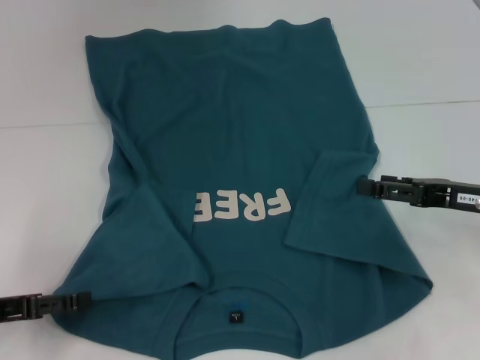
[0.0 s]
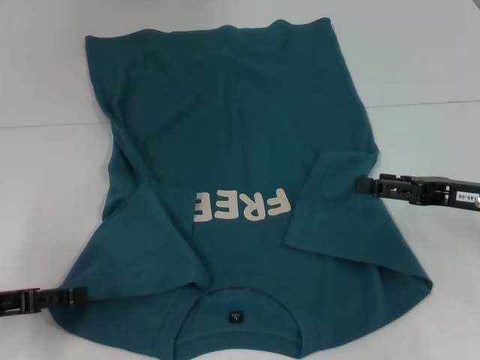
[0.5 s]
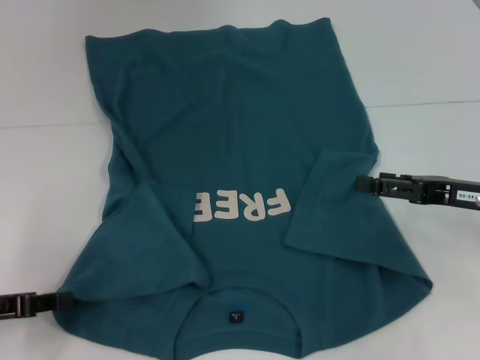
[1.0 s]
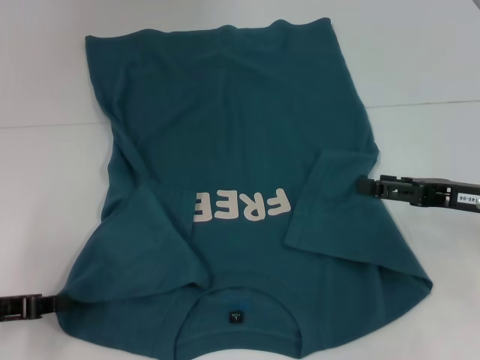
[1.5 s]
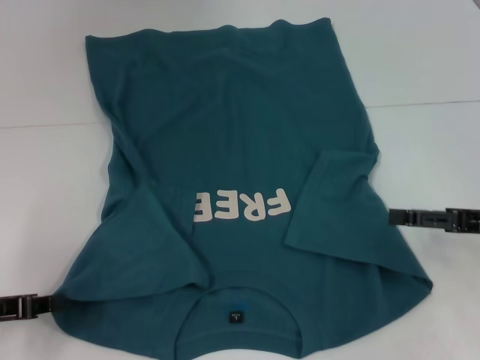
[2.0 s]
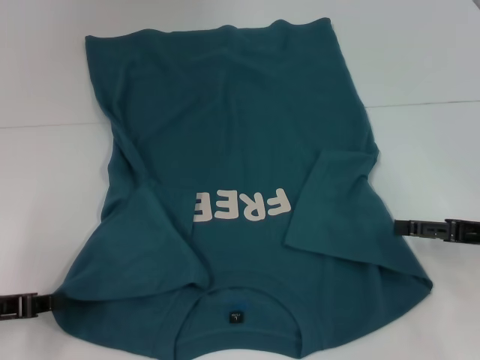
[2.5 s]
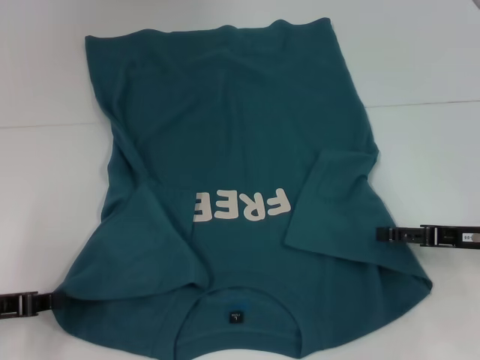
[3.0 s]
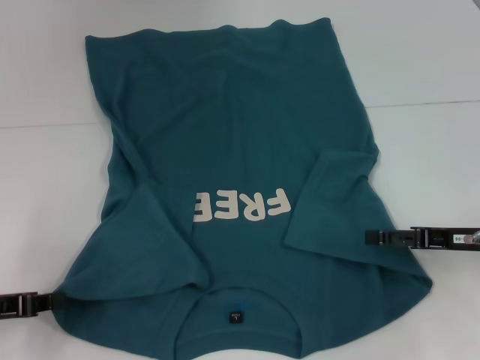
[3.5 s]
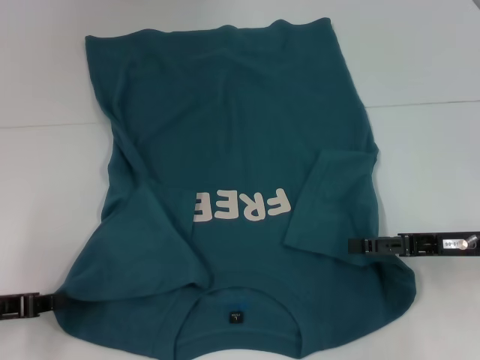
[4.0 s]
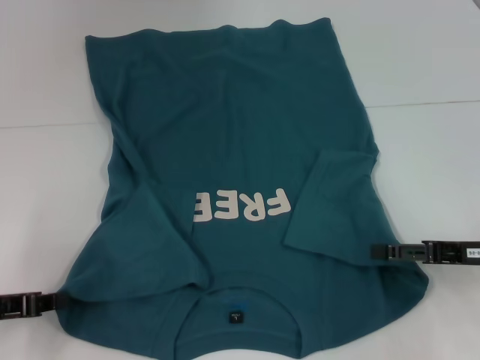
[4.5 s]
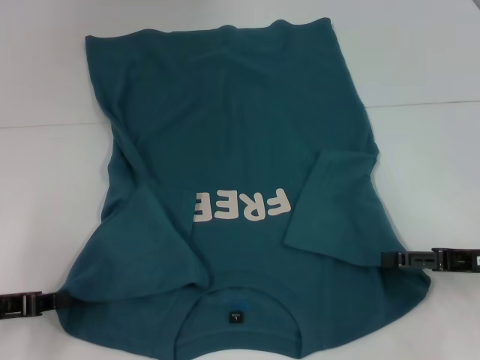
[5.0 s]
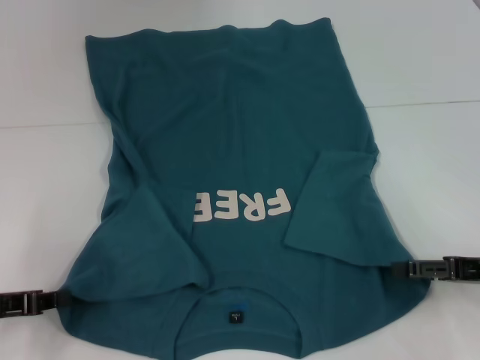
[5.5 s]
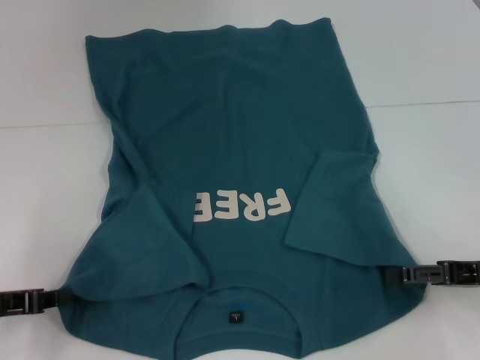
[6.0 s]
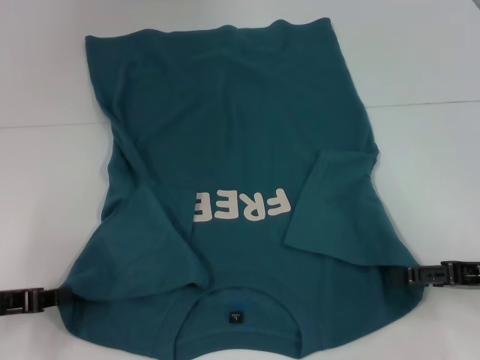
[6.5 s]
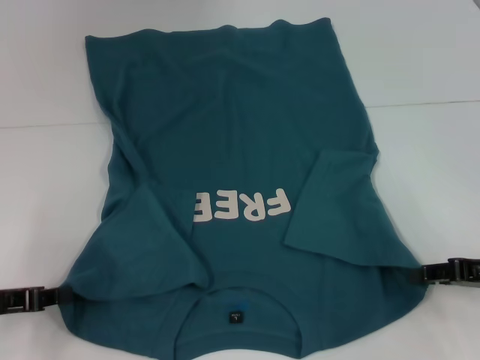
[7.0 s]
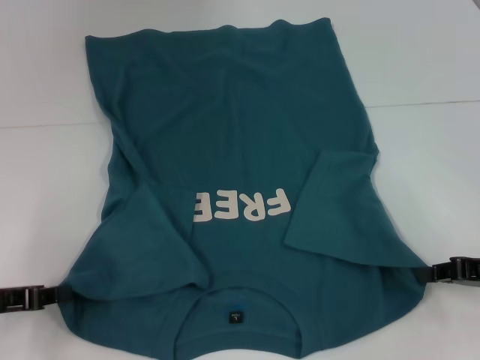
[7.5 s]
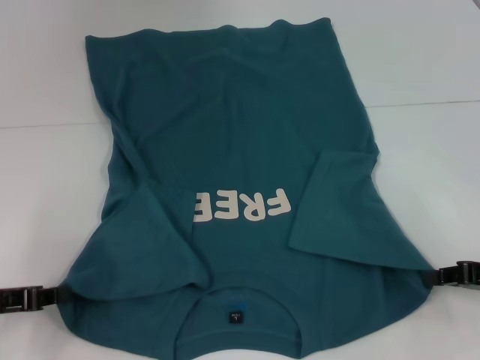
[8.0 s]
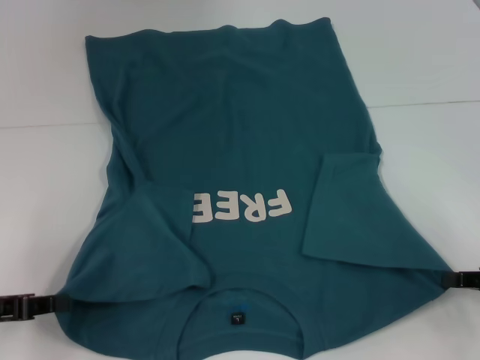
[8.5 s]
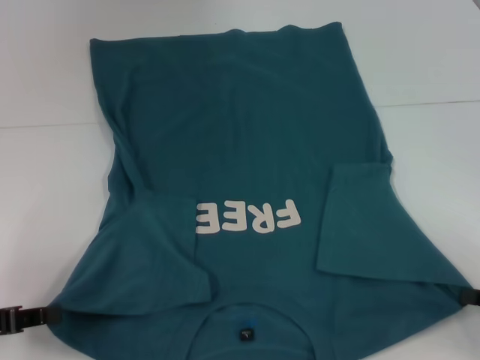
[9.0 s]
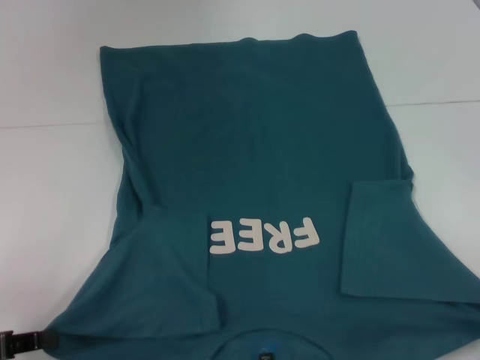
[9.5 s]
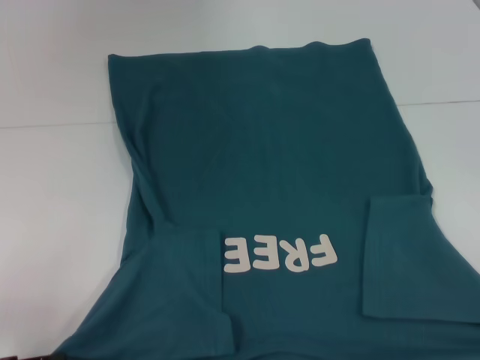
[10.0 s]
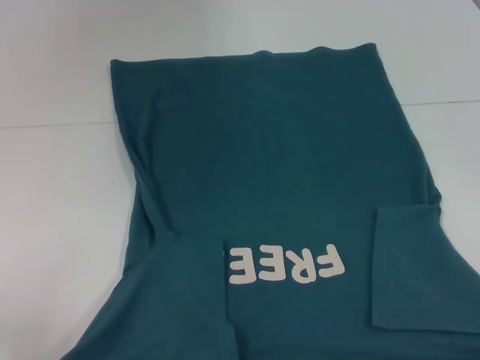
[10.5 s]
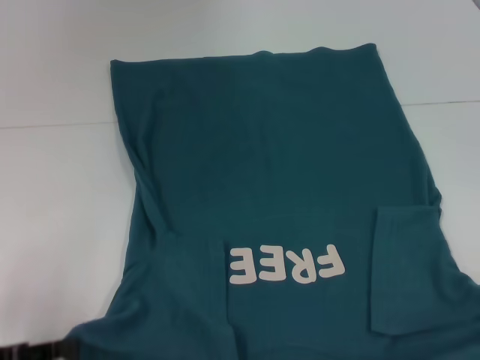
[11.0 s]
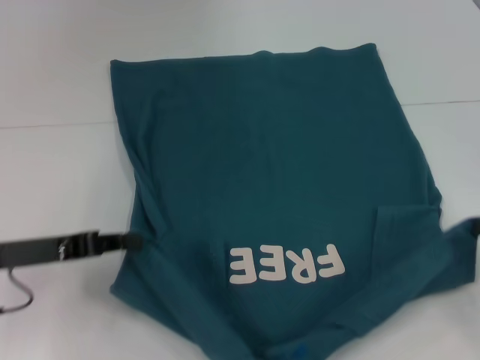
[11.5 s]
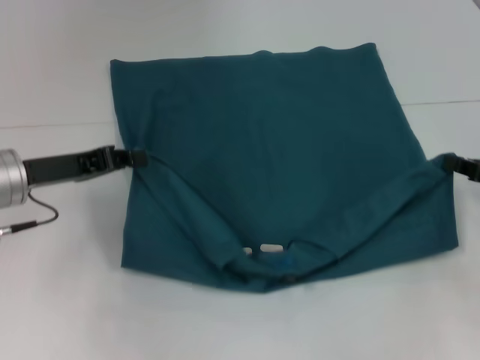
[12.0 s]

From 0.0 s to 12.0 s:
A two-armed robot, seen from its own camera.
Step, from 2.0 s to 7.5 s: Grab the bottom right corner with your right hand.
From 2.0 s to 6.0 s: The grippers move only a little.
From 6.0 s to 8.0 s: The right gripper closes its fingers.
From 8.0 s to 10.0 s: The left gripper is displaced backward by about 5 cm. Meanwhile the right gripper heads backward and to the right, covering roughly 15 cm.
From 10.0 s to 12.0 s: The right gripper moves forward, about 20 cm. The left gripper shifts roughly 20 cm forward and to the right.

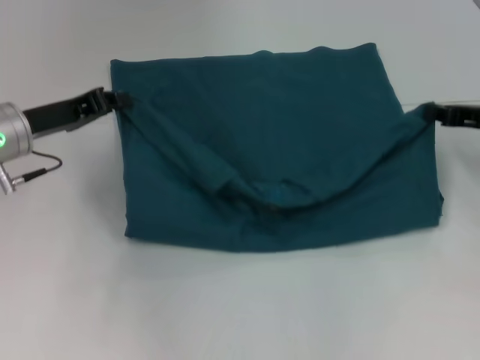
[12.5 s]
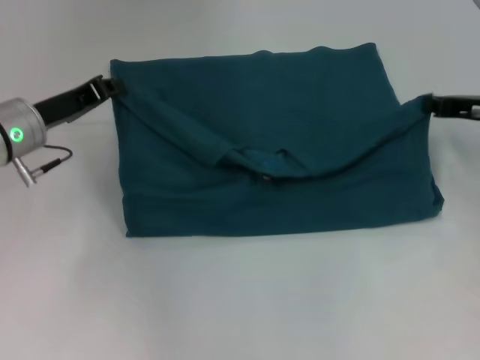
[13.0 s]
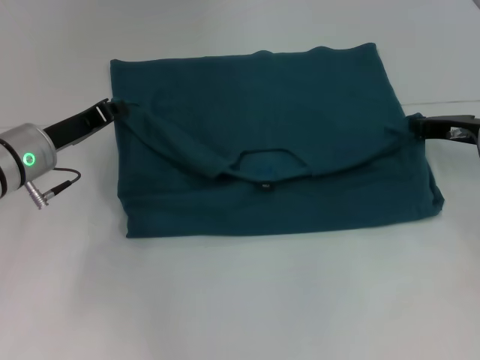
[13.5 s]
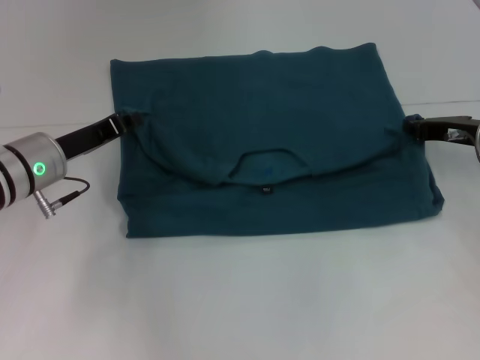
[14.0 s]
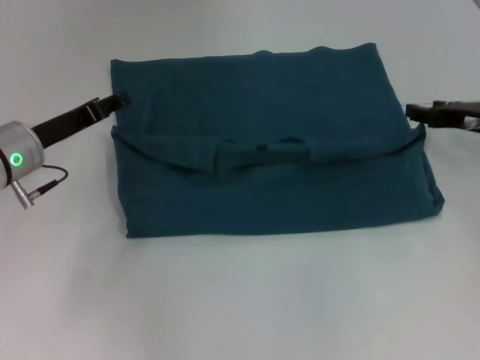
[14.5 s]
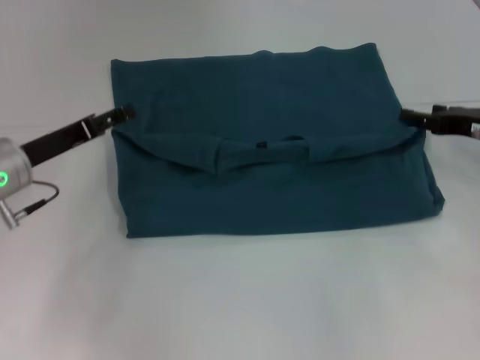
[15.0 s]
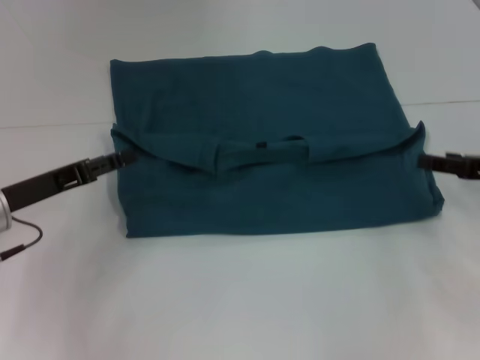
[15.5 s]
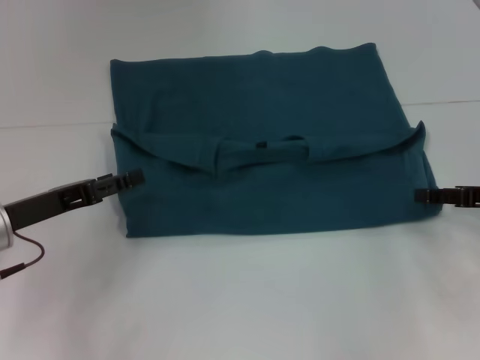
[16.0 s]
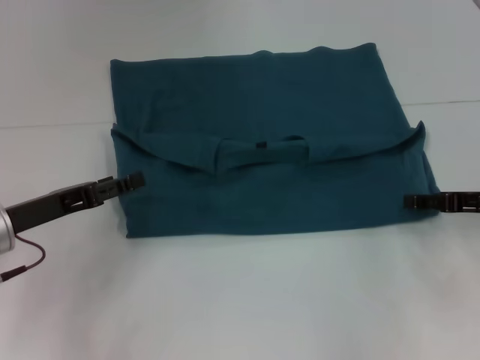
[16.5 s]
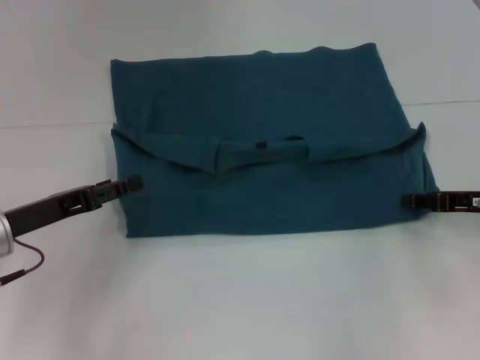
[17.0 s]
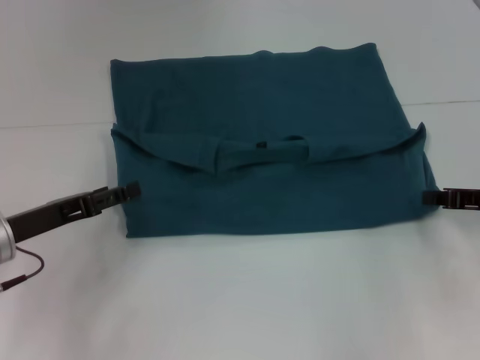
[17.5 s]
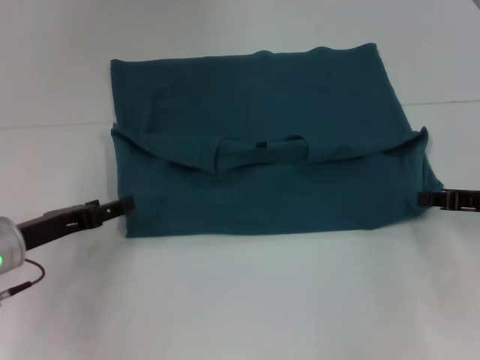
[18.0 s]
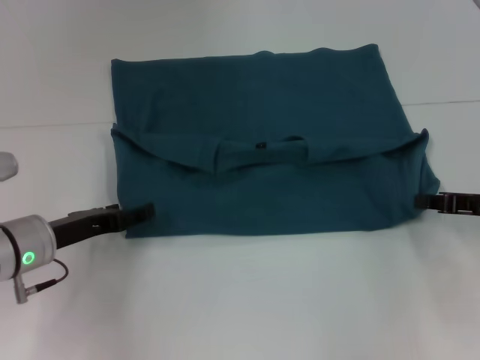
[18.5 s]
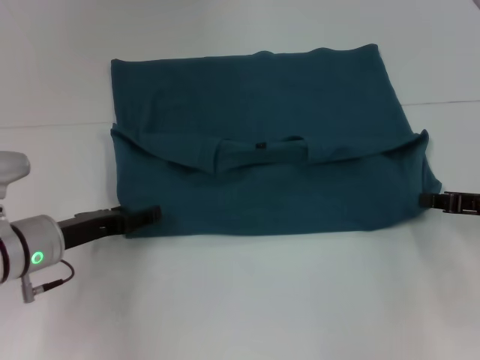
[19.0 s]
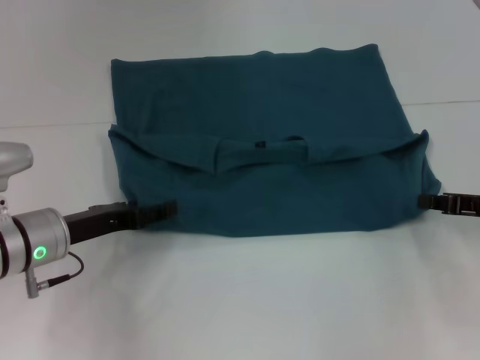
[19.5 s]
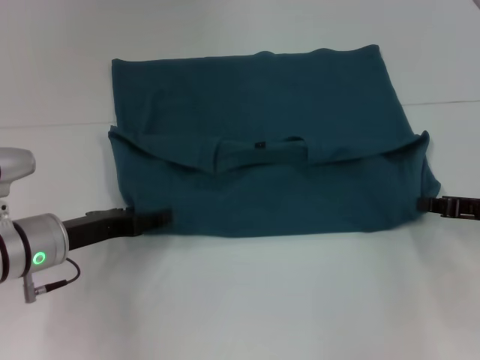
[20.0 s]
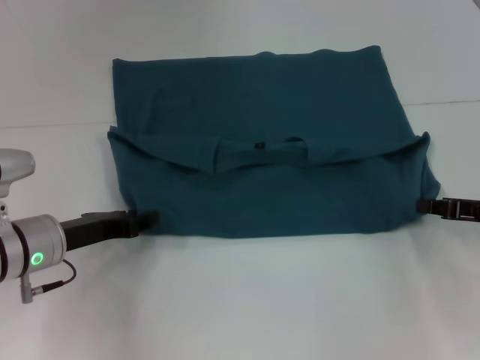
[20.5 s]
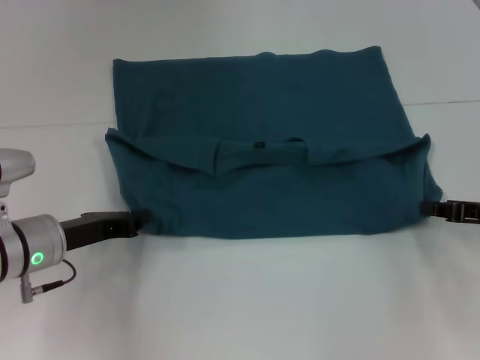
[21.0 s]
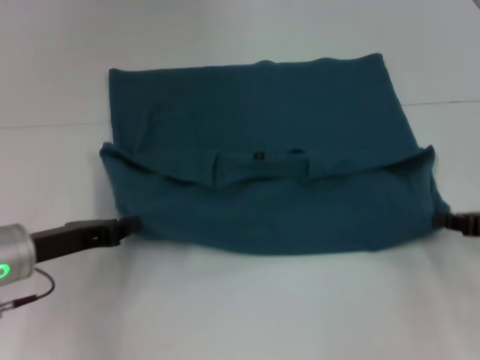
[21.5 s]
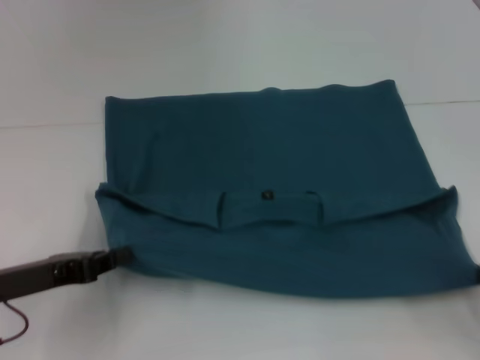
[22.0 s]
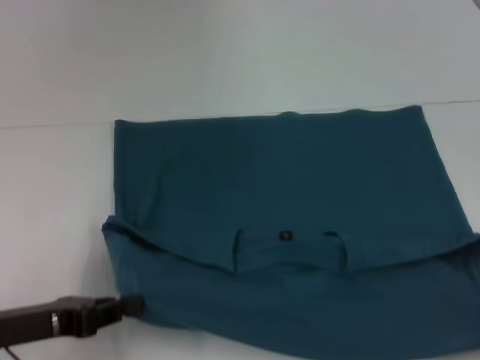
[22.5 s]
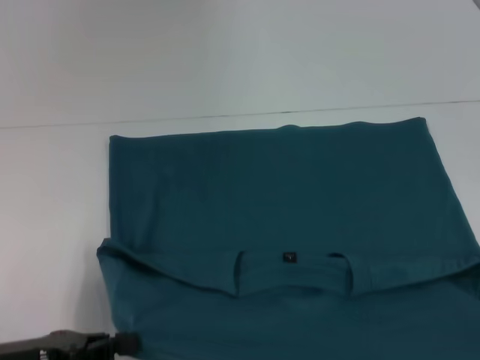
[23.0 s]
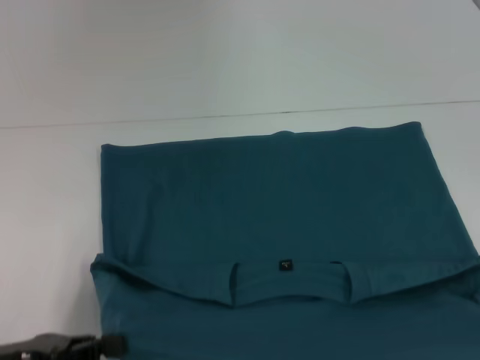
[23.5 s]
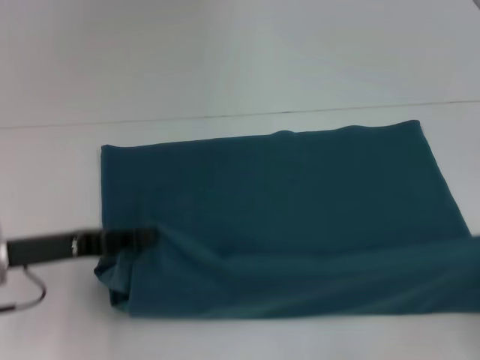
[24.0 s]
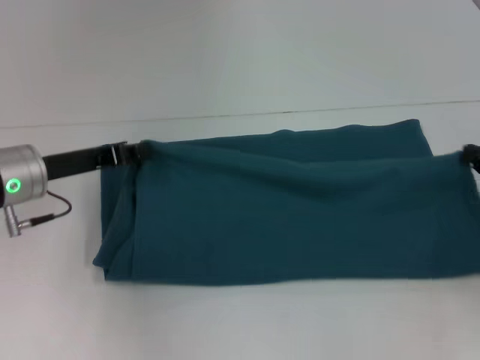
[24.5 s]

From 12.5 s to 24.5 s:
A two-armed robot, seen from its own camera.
Step, from 12.5 s to 14.5 s: Fold the clothes to the left.
Step, from 12.5 s to 14.5 s: Fold the clothes to the right.
Step, from 15.0 s to 21.5 s: Pull the clothes with your left hand.
Step, from 15.0 s to 21.5 s: Pull the clothes with your right hand.
From 12.5 s to 14.5 s: The left gripper opens up, while the right gripper opens.
From 14.5 s to 16.5 s: The grippers both shift backward by some 5 cm. The left gripper opens its fingers.
From 16.5 s to 18.5 s: The right gripper closes up.
From 18.5 s to 20.5 s: The left gripper closes.
From 20.5 s to 22.5 s: The right gripper shifts approximately 20 cm backward, while the left gripper moves backward, roughly 10 cm, and closes its fingers.
From 22.5 s to 24.5 s: Both grippers move forward, roughly 15 cm.

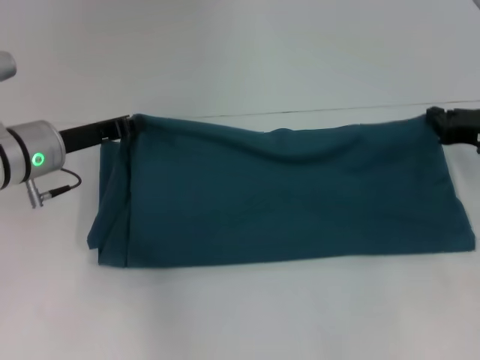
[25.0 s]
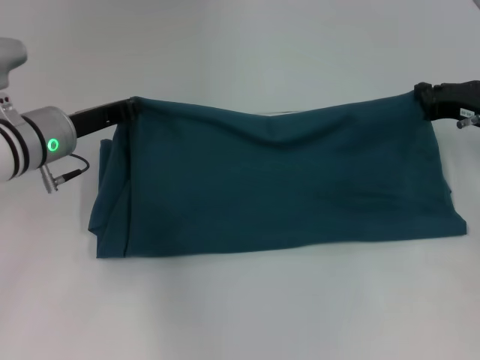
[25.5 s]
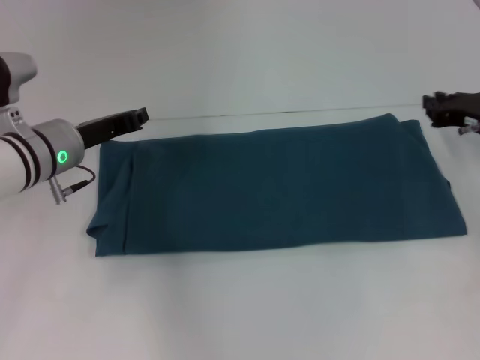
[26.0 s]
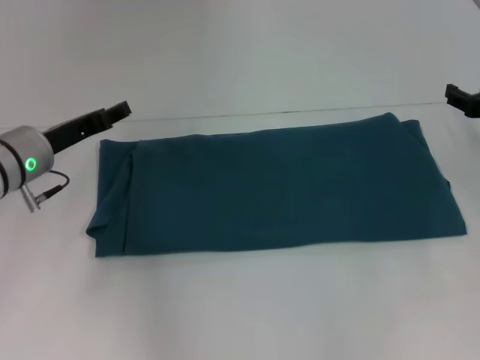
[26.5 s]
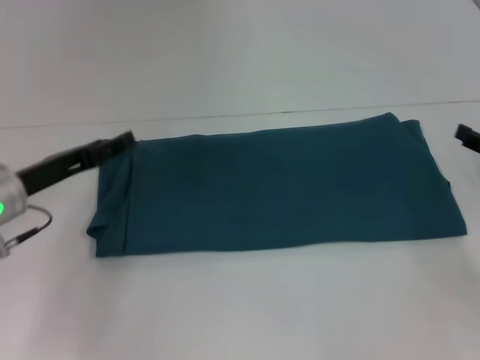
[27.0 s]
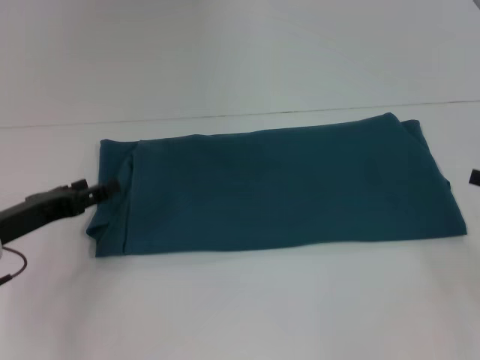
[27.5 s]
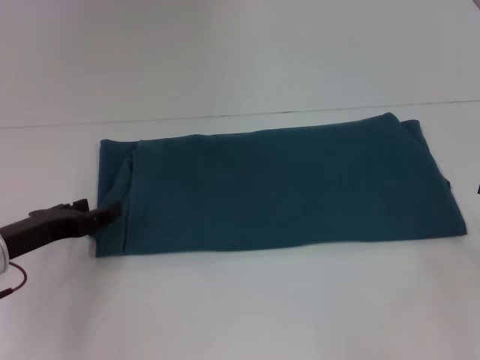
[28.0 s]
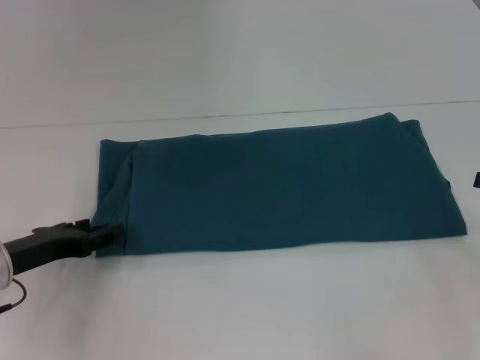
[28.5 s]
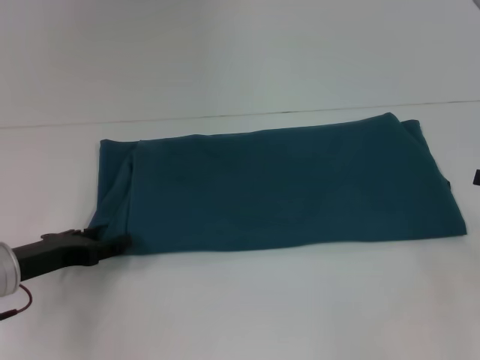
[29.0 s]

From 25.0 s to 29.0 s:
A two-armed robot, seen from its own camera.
From 25.0 s to 27.0 s: Both grippers travel together backward, some 5 cm. The right gripper opens its fingers; the left gripper opens up.
From 27.0 s to 29.0 s: The left gripper shifts by approximately 5 cm.
